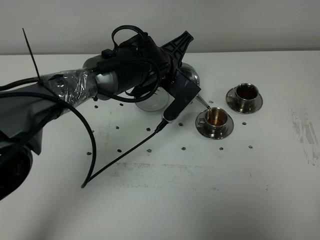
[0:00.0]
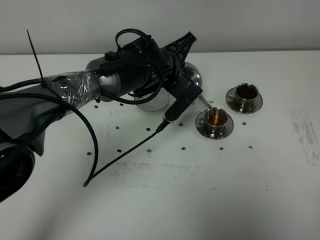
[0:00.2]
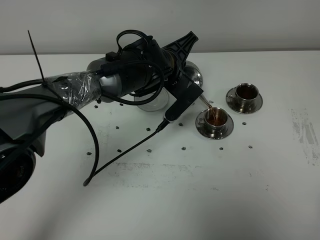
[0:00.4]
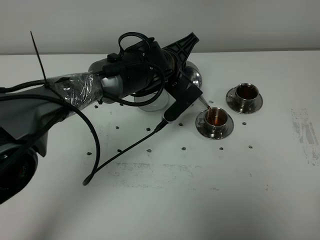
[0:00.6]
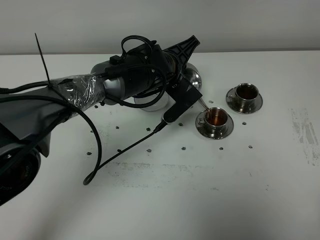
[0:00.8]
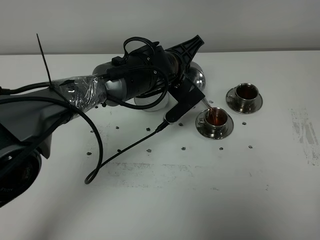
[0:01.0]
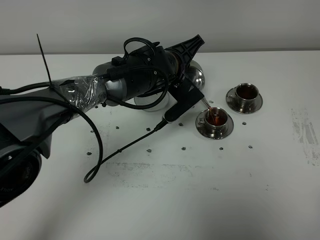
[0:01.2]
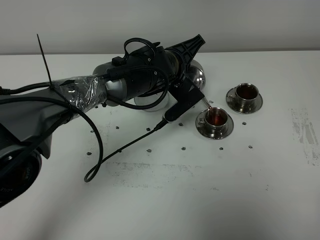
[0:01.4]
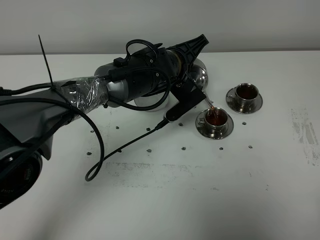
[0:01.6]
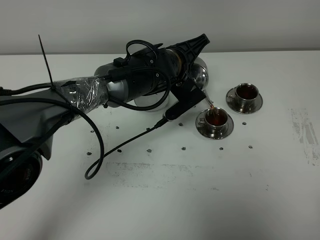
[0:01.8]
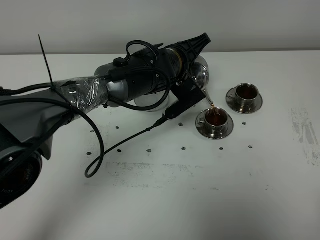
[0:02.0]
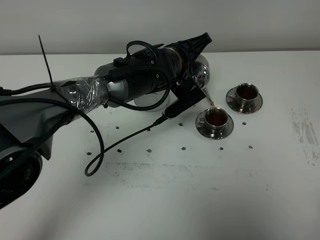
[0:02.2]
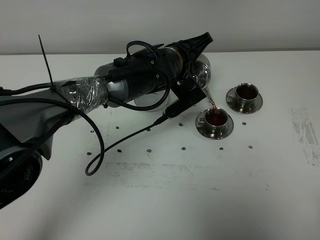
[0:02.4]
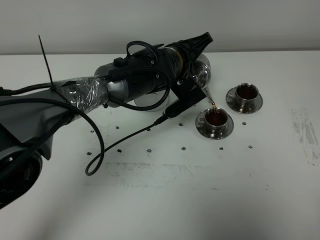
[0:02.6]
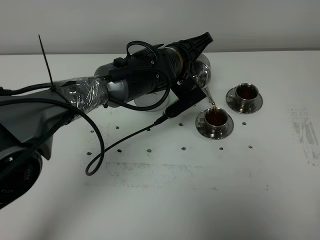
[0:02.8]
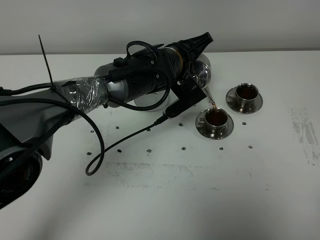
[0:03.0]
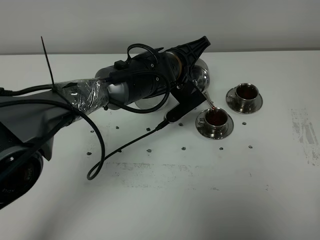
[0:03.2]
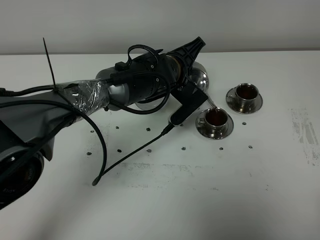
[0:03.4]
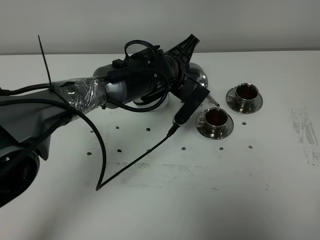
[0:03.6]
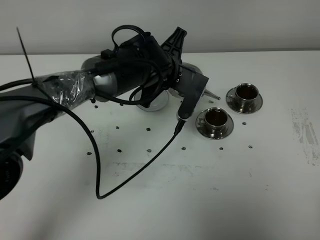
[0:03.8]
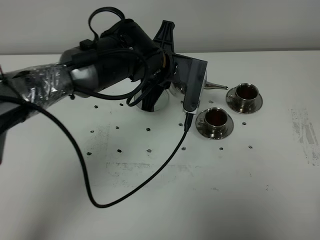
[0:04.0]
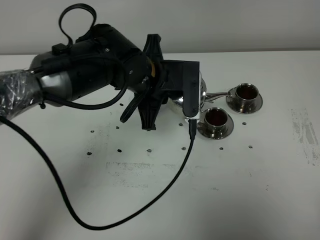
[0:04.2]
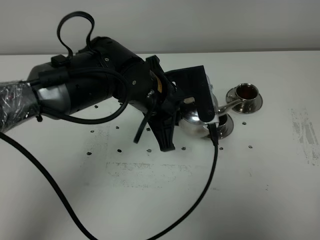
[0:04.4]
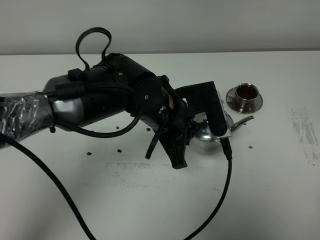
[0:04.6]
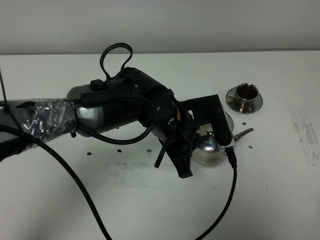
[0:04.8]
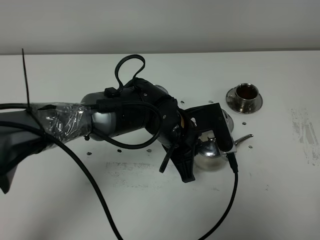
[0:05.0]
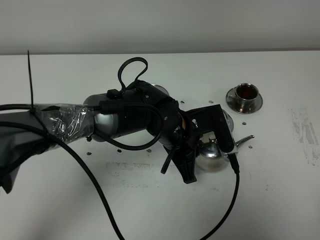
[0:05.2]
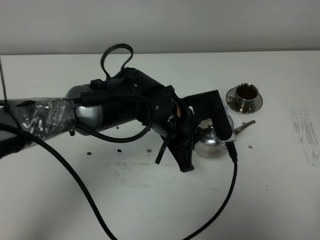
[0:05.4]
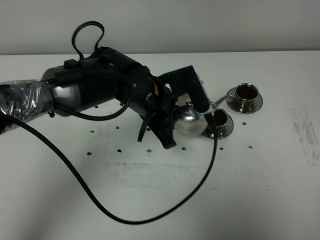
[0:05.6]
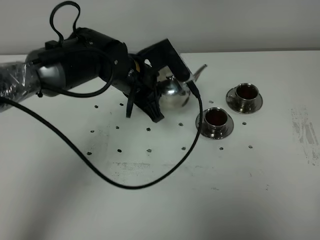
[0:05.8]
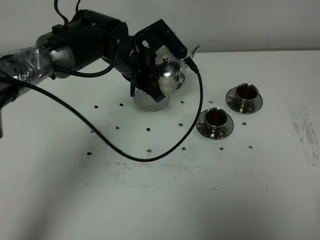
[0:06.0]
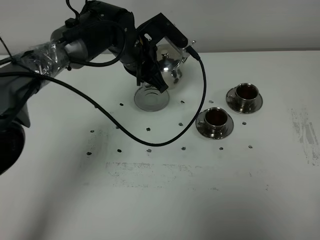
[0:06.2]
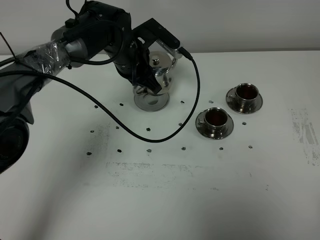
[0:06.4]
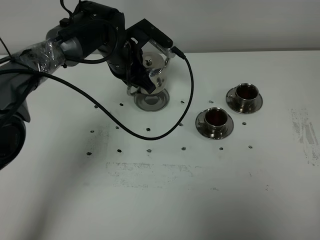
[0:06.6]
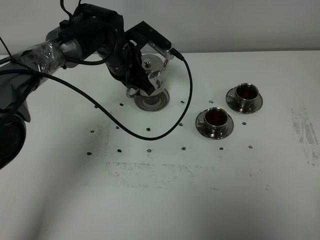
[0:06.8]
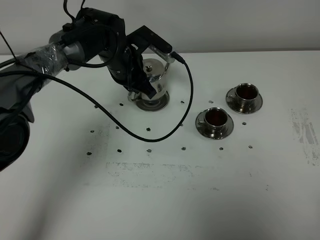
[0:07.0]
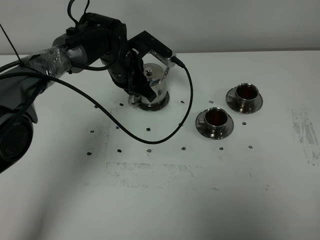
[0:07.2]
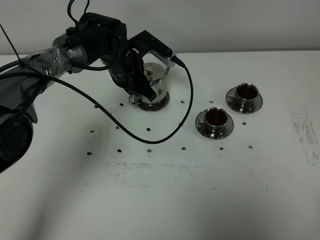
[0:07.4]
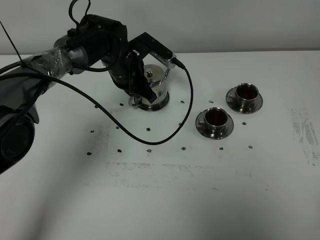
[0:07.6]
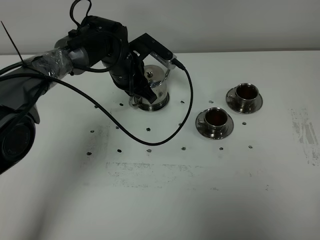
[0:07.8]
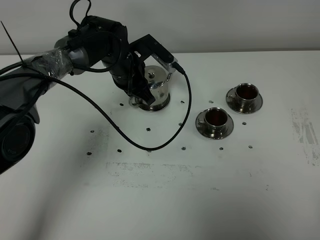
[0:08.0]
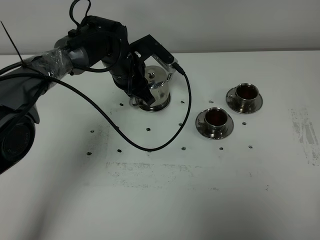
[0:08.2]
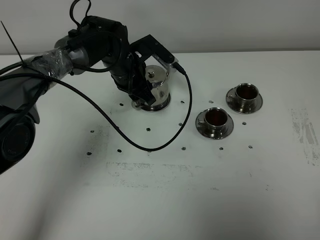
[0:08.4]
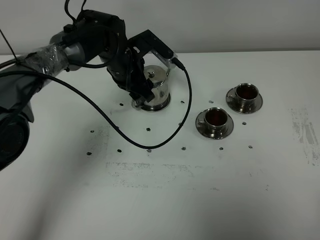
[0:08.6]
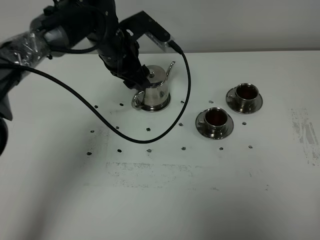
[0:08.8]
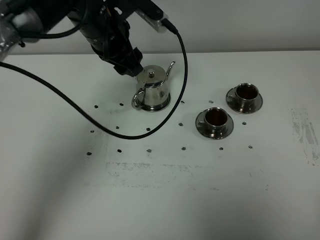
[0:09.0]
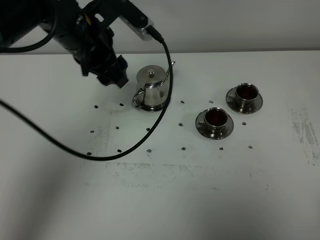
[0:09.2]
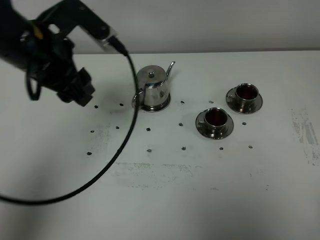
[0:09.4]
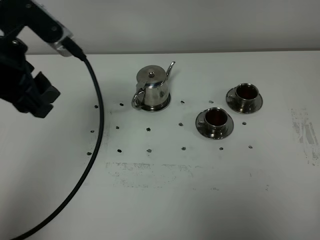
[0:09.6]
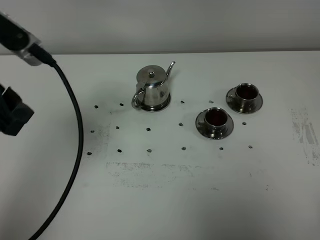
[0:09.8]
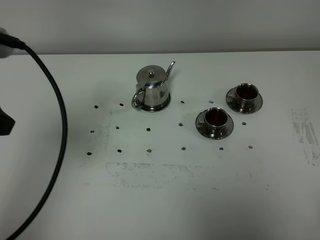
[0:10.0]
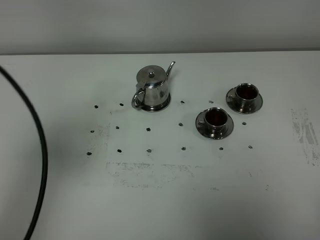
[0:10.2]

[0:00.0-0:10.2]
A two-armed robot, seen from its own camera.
Task of the whole recording: grasp the stainless steel teapot and pour the tea into the two stainless steel teacups one by one, put the stainless steel teapot back in its original place.
Step, 0:00.0 to 0:03.6: Pour tea into the teacup with the left gripper.
0:00.0 to 0:03.0: The grippers move only a little.
0:03.0 to 0:04.4: The left gripper moves backward, some 10 cm.
0:04.4 to 0:05.8: The left gripper heads forward, covering approximately 5 cm.
0:05.8 to 0:07.2: The left gripper travels forward by roughly 10 cm.
0:07.2 to 0:08.8: The left gripper moves upward, some 5 cm, and opens up.
0:08.8 to 0:10.2: The left gripper shifts approximately 35 cm backward, to the left and upward.

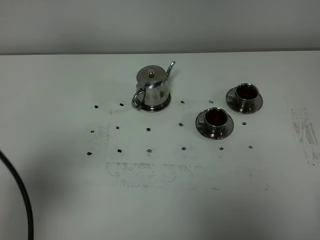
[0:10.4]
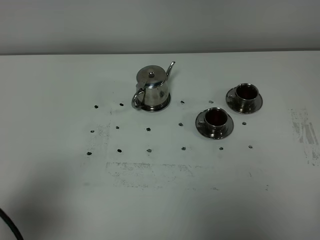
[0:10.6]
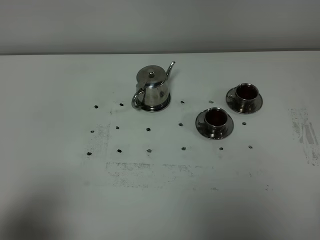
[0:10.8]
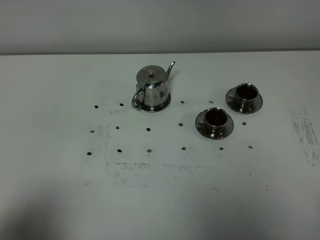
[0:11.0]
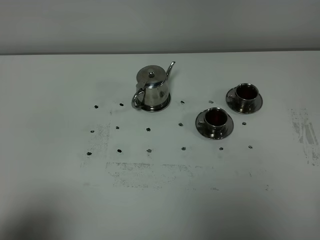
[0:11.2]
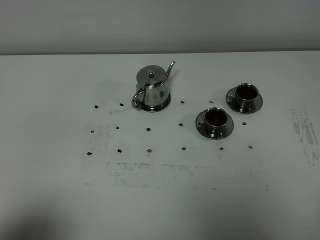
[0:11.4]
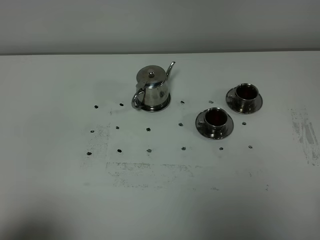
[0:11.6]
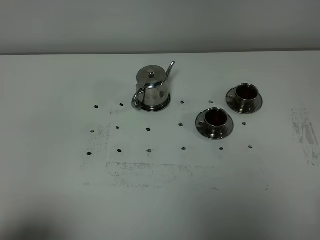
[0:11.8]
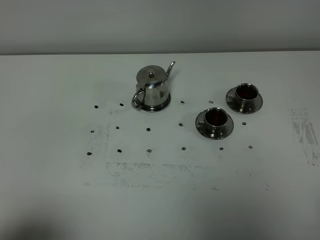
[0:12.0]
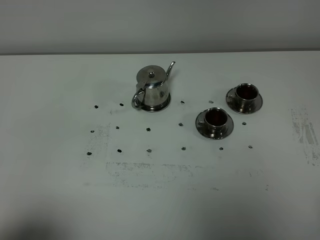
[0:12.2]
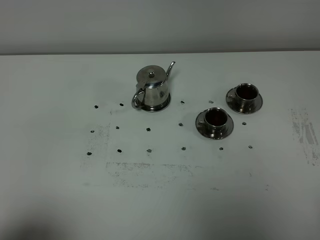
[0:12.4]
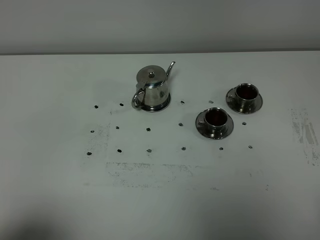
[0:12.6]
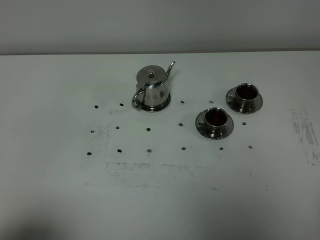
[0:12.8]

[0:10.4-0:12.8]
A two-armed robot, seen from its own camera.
Task of the whole recording: grasp the stainless steel teapot and pour the tea into the two stainless steel teacups one by one, put the stainless steel teapot back in its original place.
0:10.4 to 0:11.6: The left gripper is displaced backward and downward by about 10 cm.
0:11.6 to 0:12.8: The two grippers keep their place.
